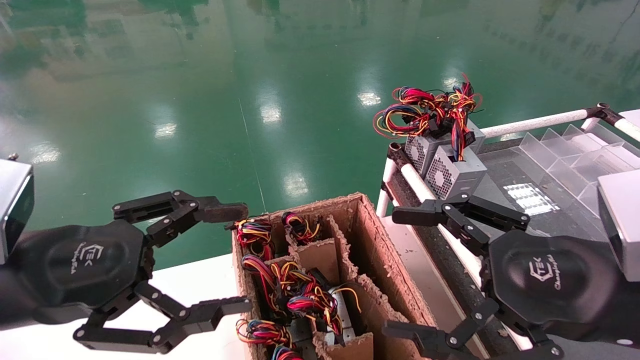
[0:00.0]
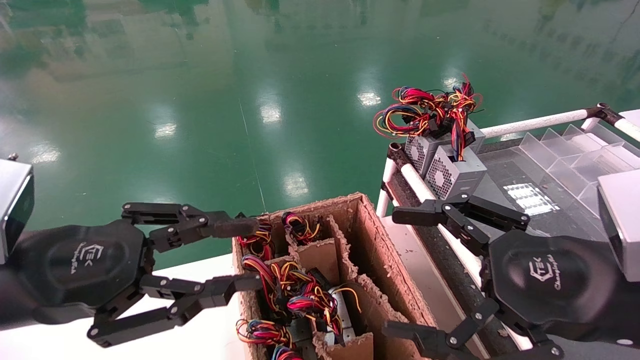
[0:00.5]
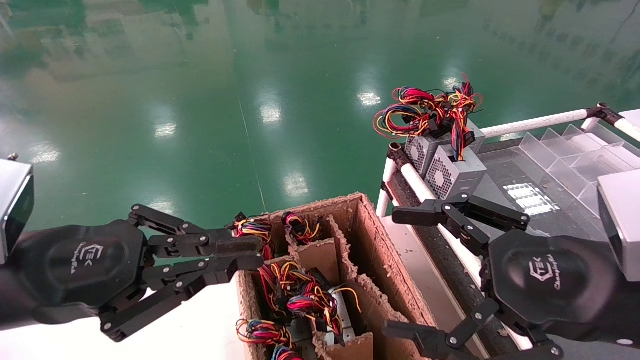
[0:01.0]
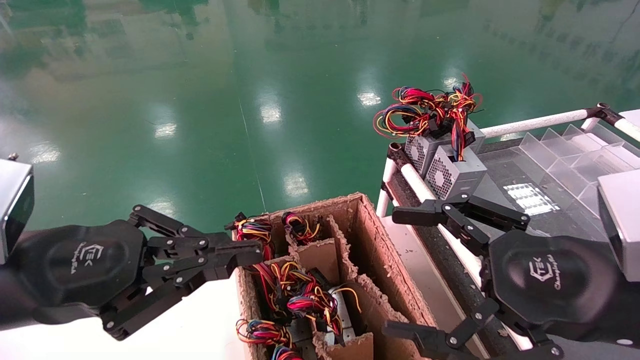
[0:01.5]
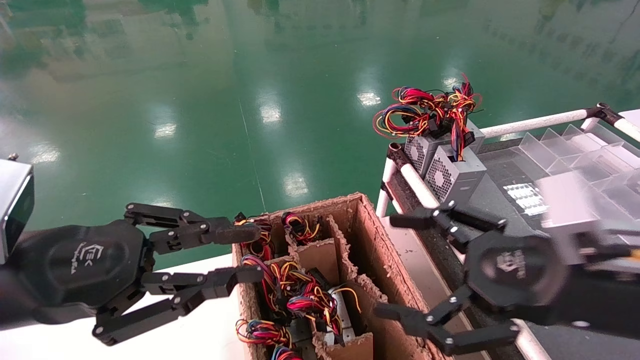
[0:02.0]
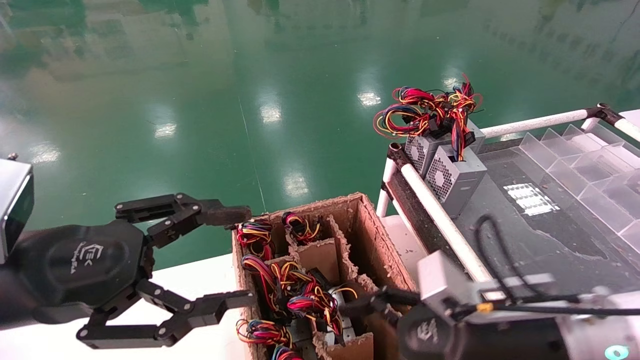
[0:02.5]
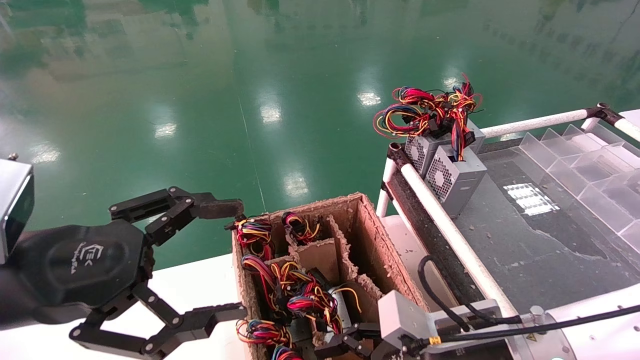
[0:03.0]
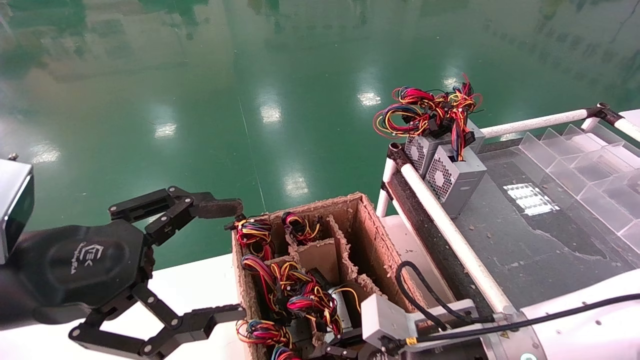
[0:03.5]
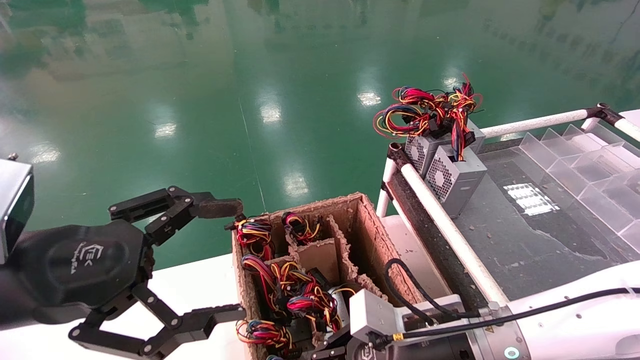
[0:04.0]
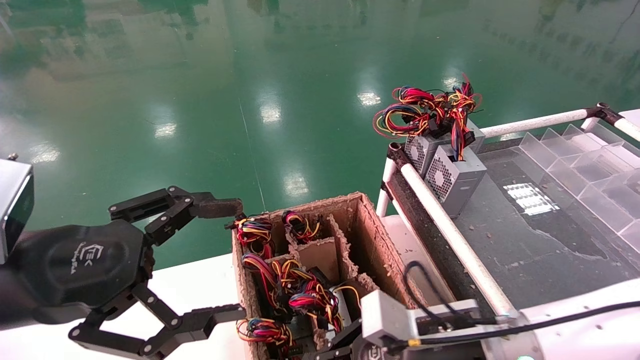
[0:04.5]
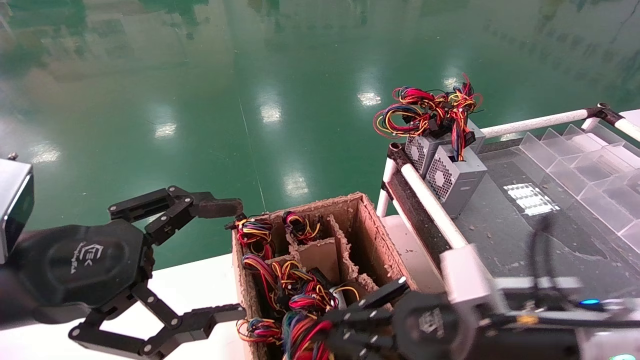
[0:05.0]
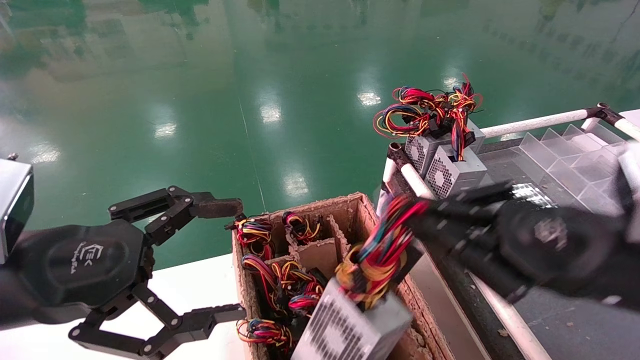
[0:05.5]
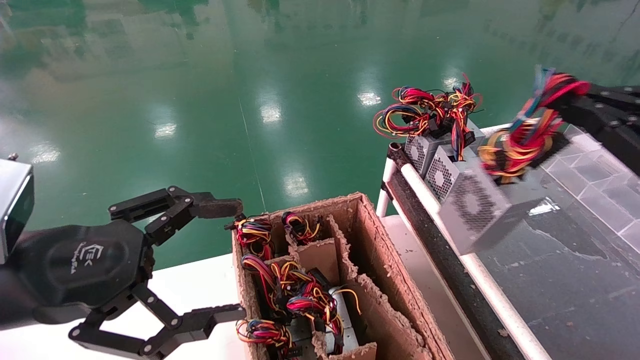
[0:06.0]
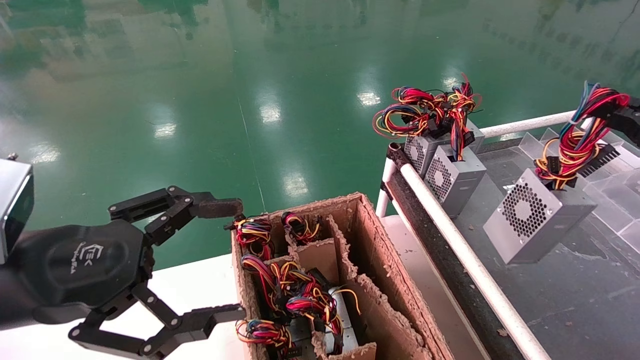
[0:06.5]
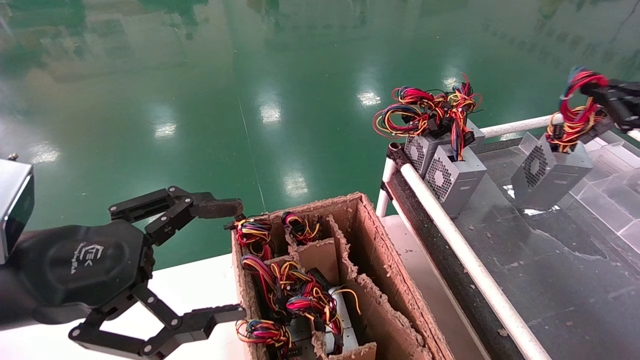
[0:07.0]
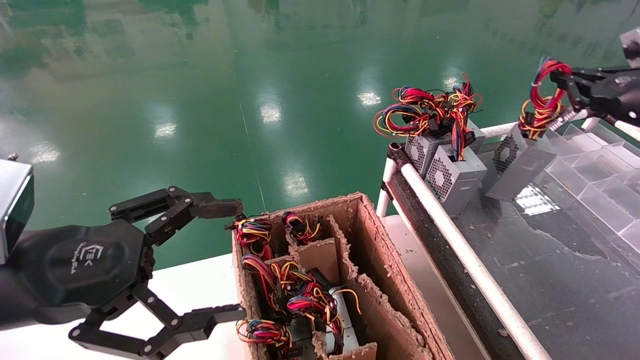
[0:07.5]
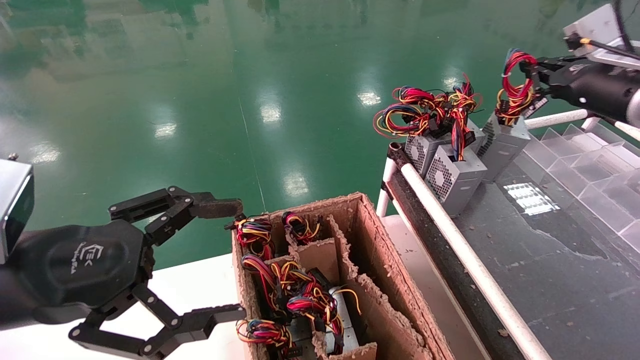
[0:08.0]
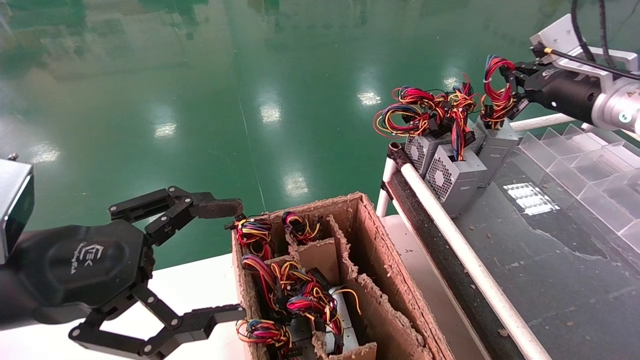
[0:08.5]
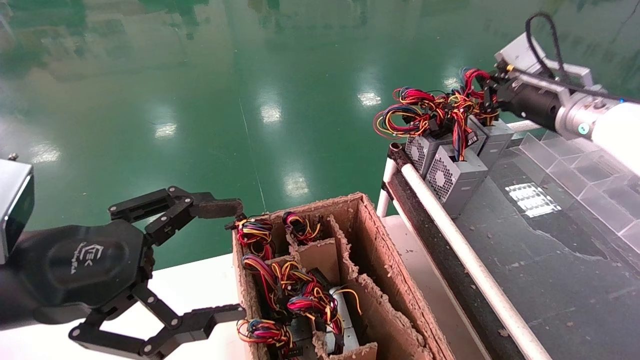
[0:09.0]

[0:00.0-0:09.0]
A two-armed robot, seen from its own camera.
Step, 0:01.5 to 0:04.5: Grab and lift the power supply from the large box.
0:00.0 to 0:02.0: The left gripper closes up.
0:02.0 to 0:04.5: The left gripper opens up, while the right gripper shifts roughly 15 cm downward, to the left and forward, and closes.
0:04.5 to 0:07.0: The right gripper is displaced to the right and upward by some 35 cm.
0:07.0 to 0:09.0: The right gripper shifts some 20 cm to the left and forward.

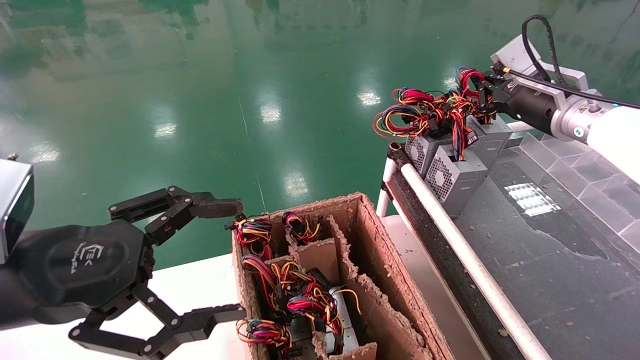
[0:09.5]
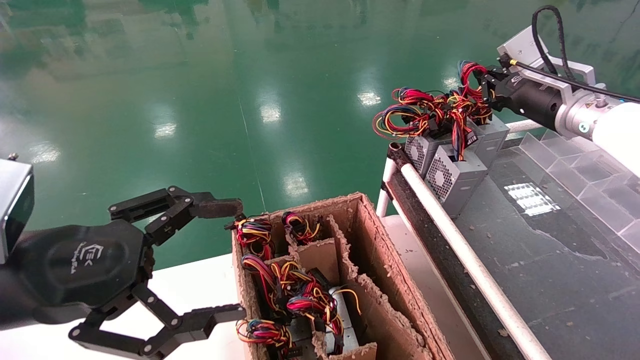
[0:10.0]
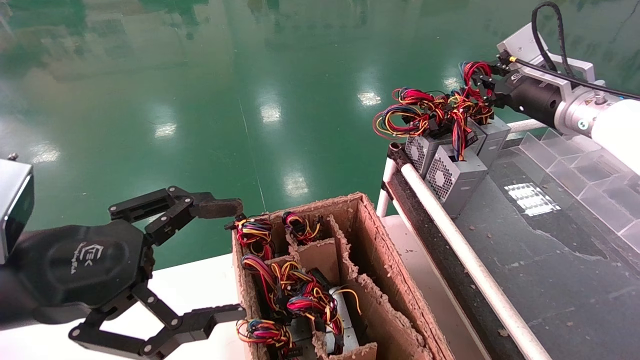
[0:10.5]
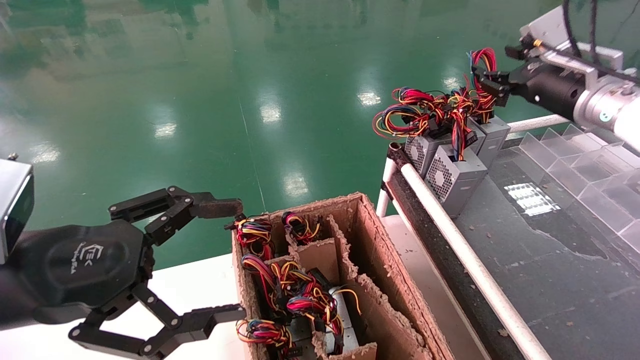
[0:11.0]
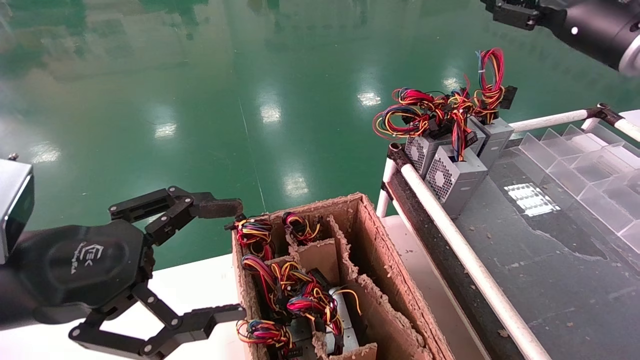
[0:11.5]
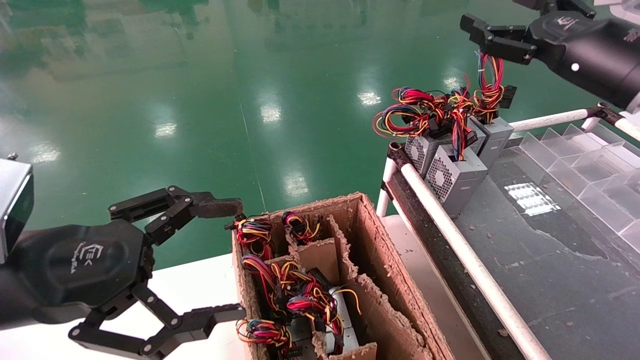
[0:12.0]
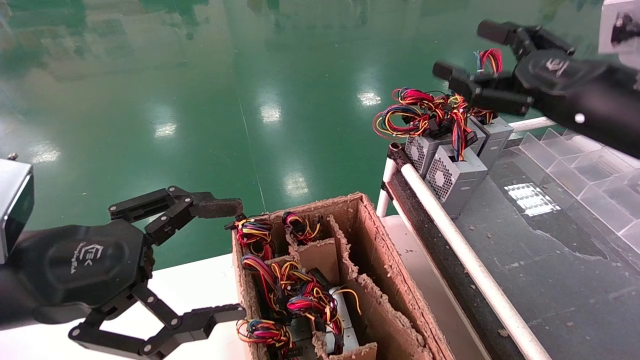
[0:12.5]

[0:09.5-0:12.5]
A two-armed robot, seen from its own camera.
0:09.5 to 0:11.0: The right gripper opens up.
0:11.0 to 0:12.5: The right gripper travels backward by some 10 cm, and opens up.
